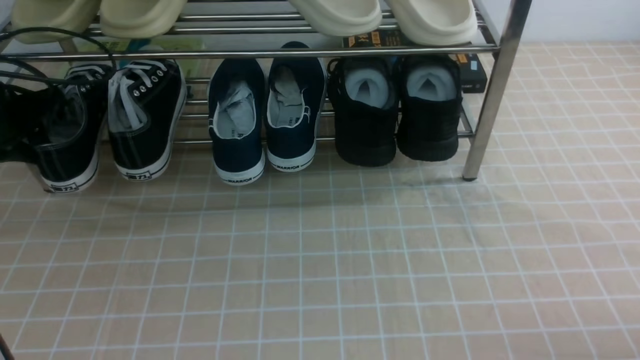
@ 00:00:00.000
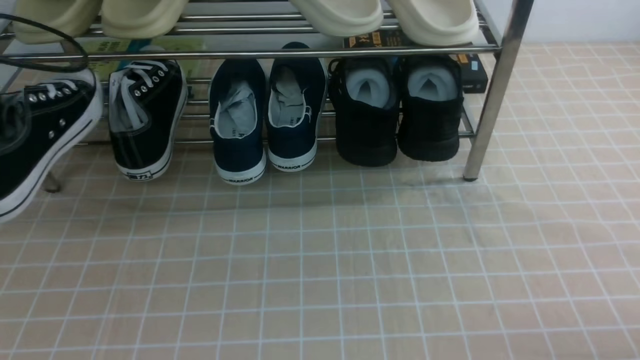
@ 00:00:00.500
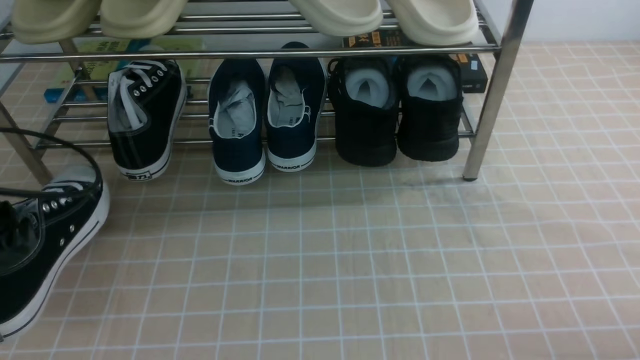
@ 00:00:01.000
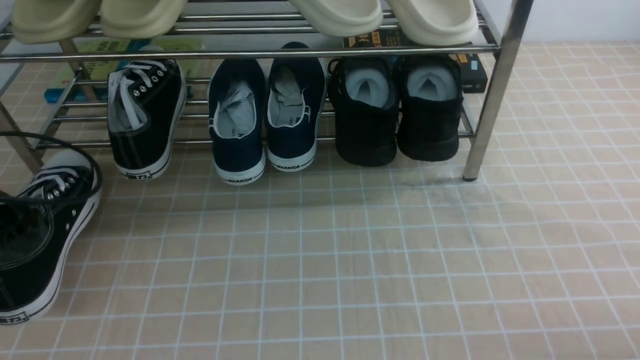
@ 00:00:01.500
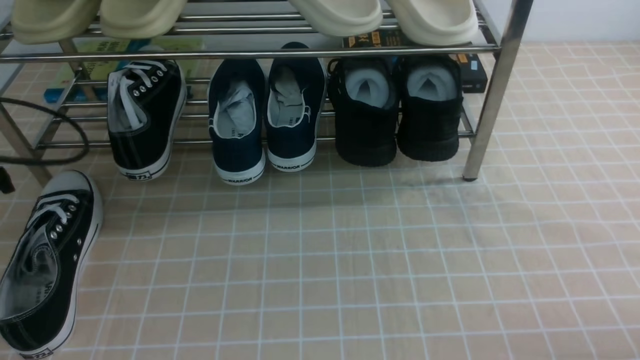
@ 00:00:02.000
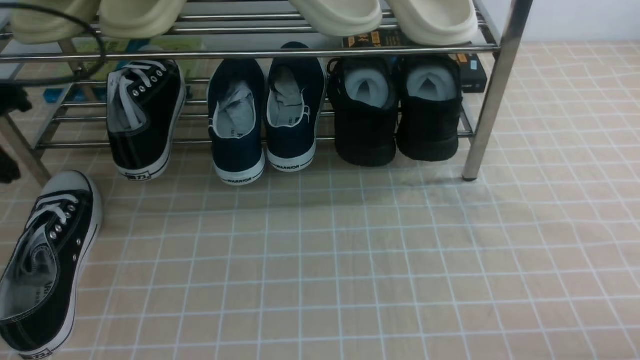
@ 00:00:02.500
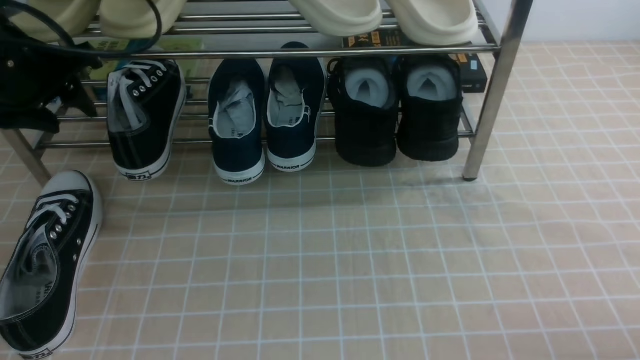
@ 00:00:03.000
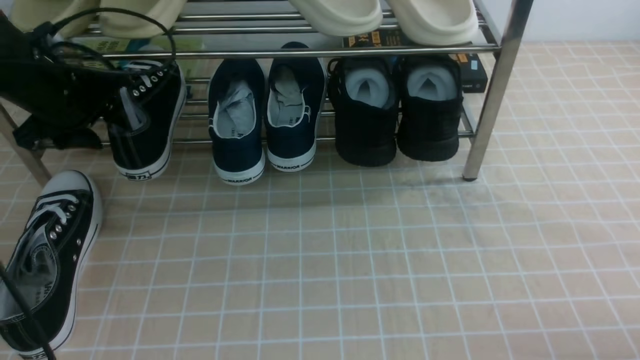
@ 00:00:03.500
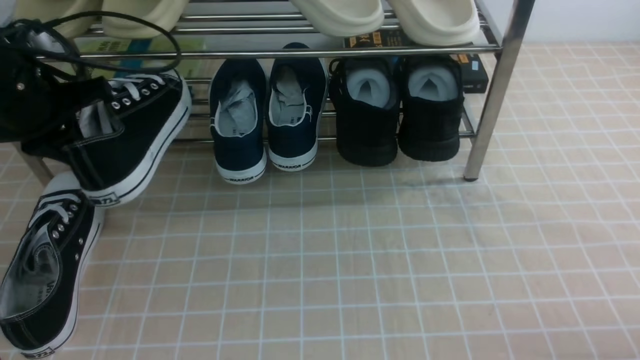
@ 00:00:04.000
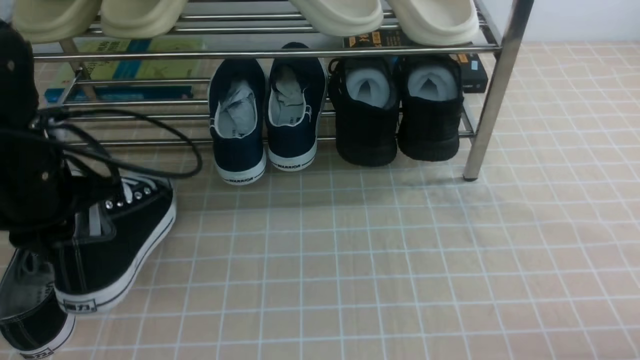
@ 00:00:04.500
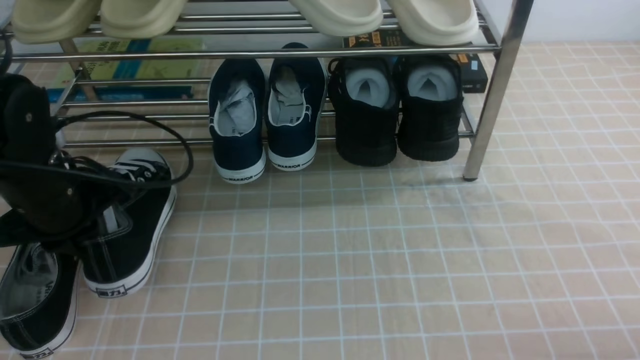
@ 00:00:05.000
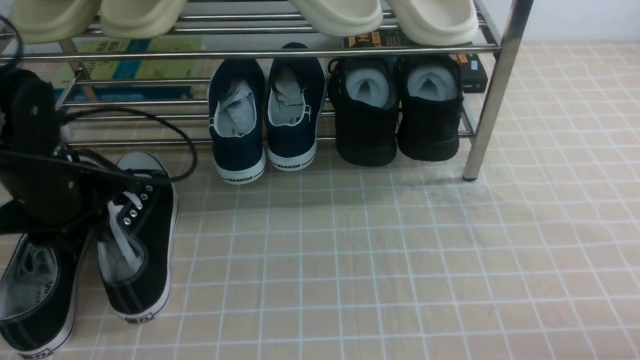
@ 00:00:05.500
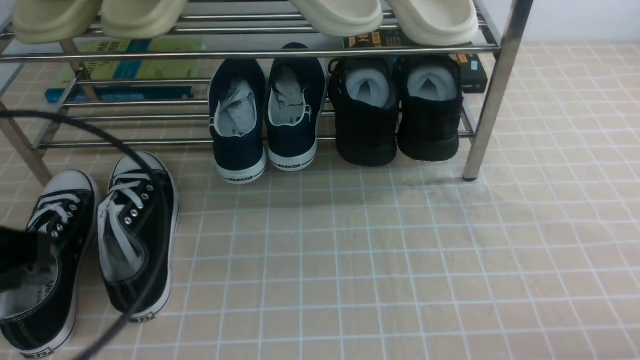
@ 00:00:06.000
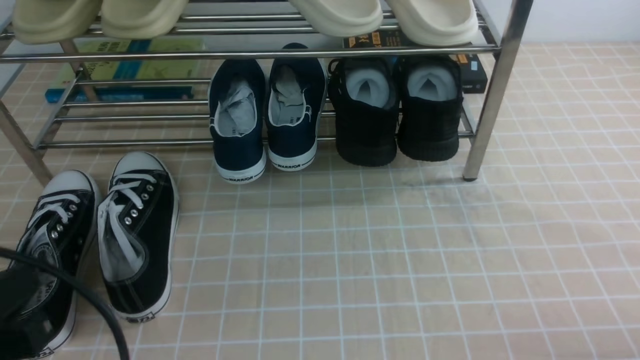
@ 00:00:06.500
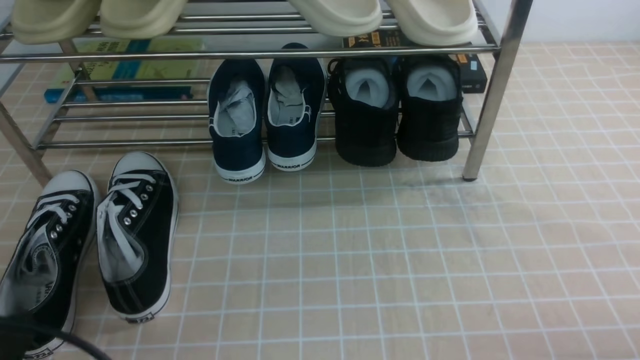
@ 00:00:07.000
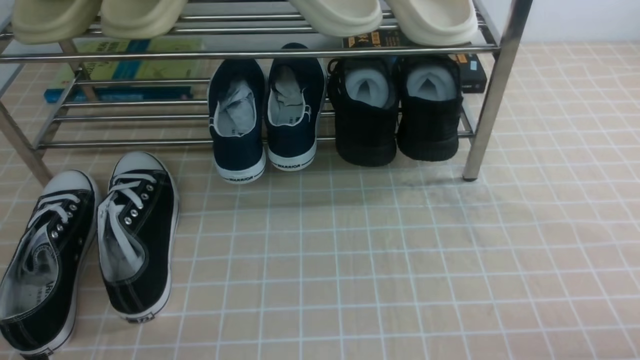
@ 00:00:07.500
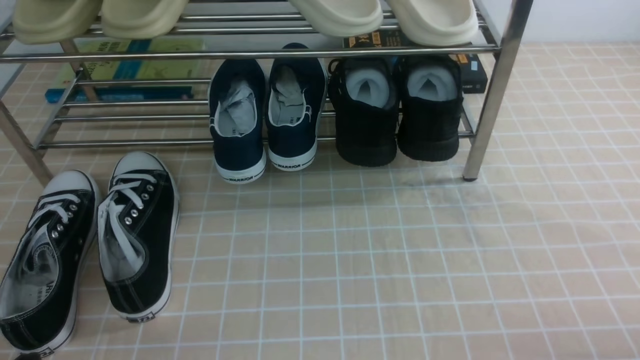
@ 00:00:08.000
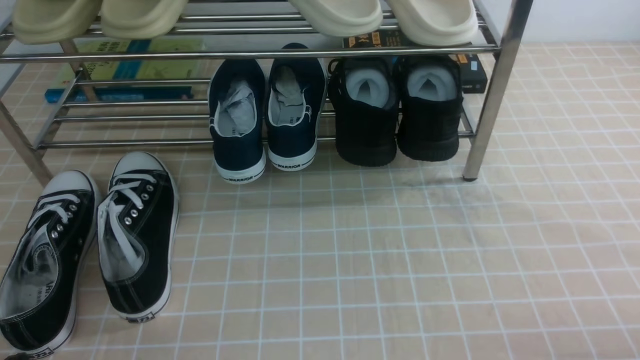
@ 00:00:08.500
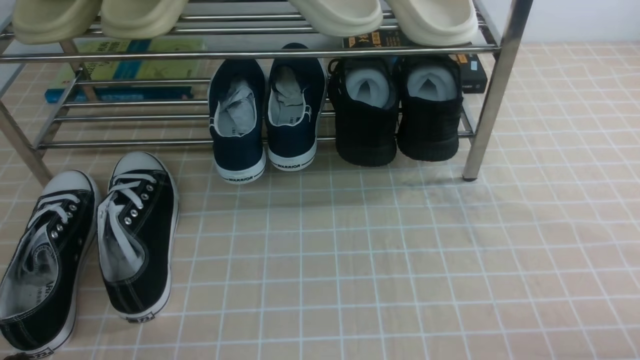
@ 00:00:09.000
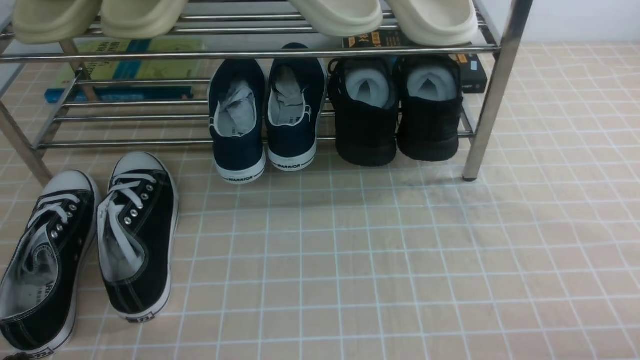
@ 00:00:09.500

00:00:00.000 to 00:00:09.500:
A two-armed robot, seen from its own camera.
Step, 00:00:00.500 to 00:00:02.000: Use your left arm to remove the clamped shoe from the shoe rack and put it down.
Step, 00:00:02.500 to 00:00:03.500: use the left arm to clamp a shoe on the left side of the shoe rack.
Step, 00:00:04.000 to 00:00:05.500: Use your left arm to remove the clamped shoe from the shoe rack and put it down.
00:00:00.000 to 00:00:02.000: The left gripper goes about 15 cm backward, and closes, then opens again.
00:00:02.000 to 00:00:04.000: The left gripper is displaced forward and to the right by approximately 10 cm, and closes its fingers.
00:00:04.000 to 00:00:05.500: The left gripper goes about 5 cm backward, and opens its fingers.
00:00:05.500 to 00:00:07.500: The left gripper goes about 25 cm backward, and closes.
